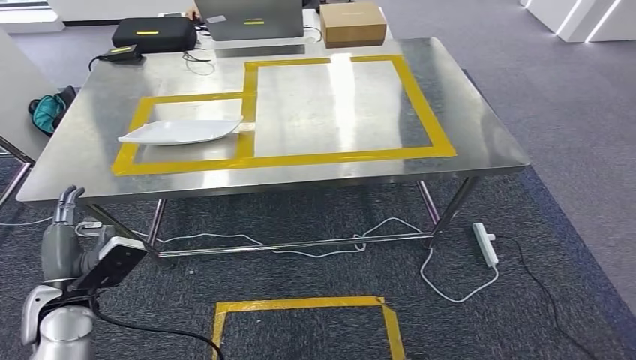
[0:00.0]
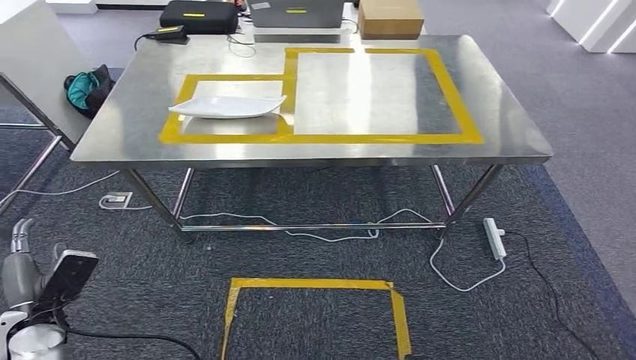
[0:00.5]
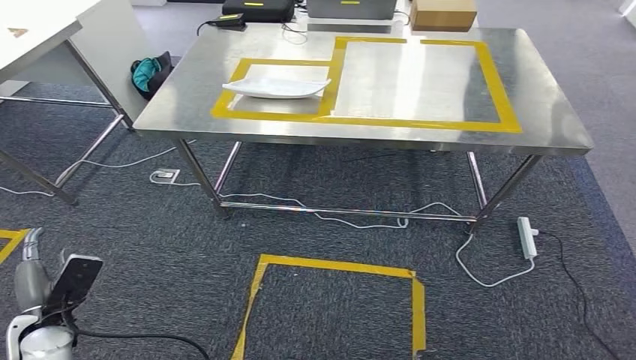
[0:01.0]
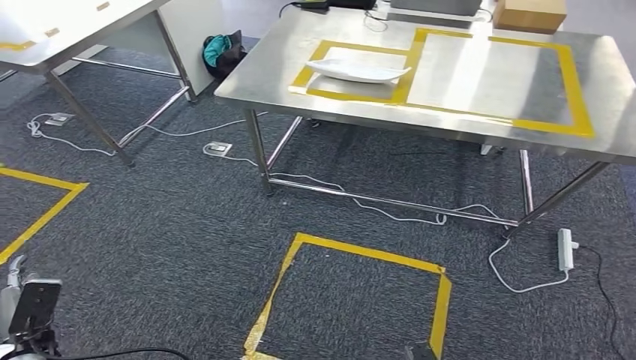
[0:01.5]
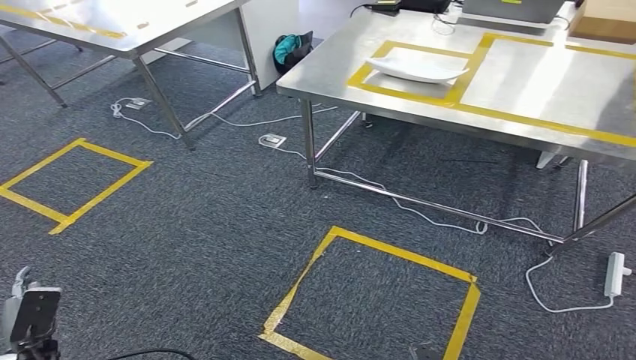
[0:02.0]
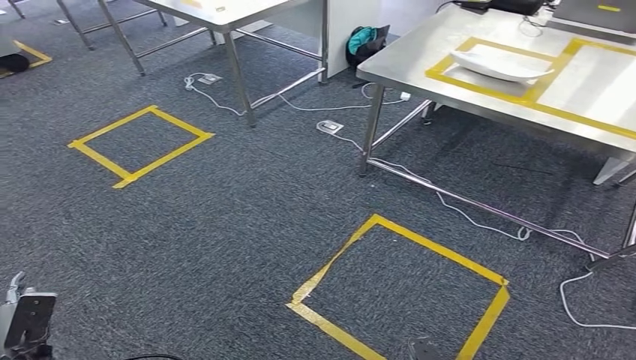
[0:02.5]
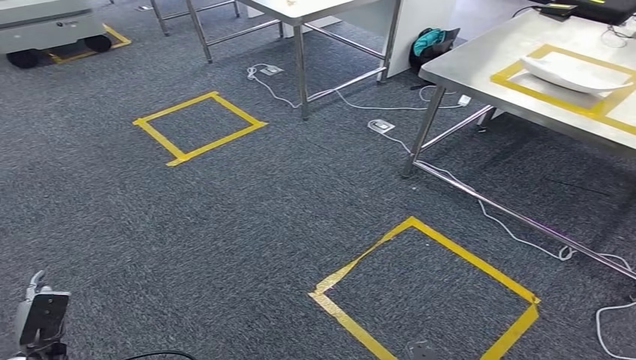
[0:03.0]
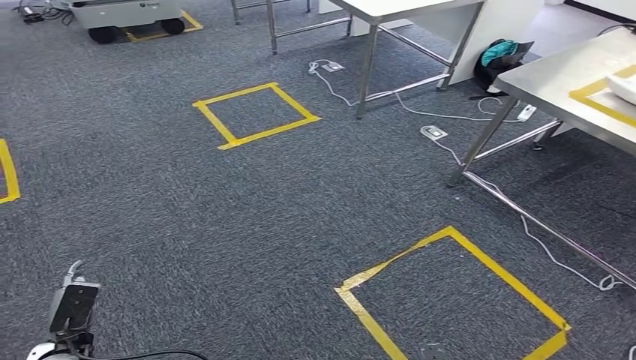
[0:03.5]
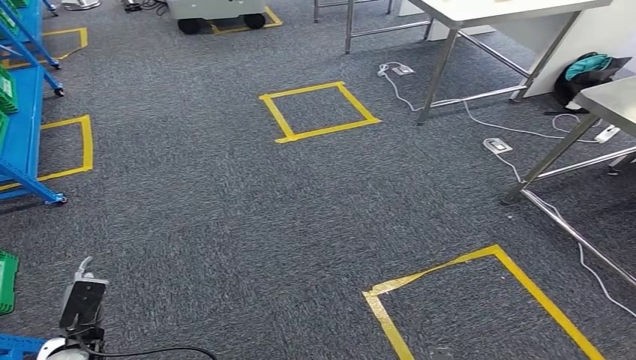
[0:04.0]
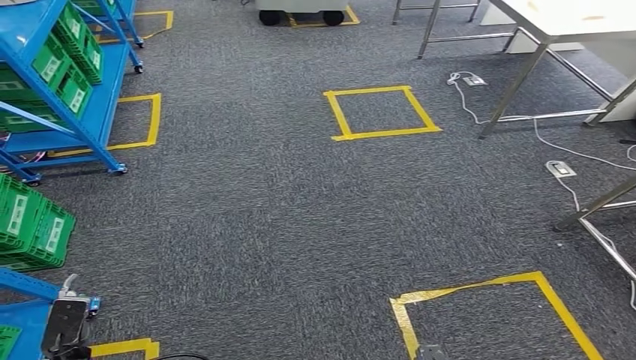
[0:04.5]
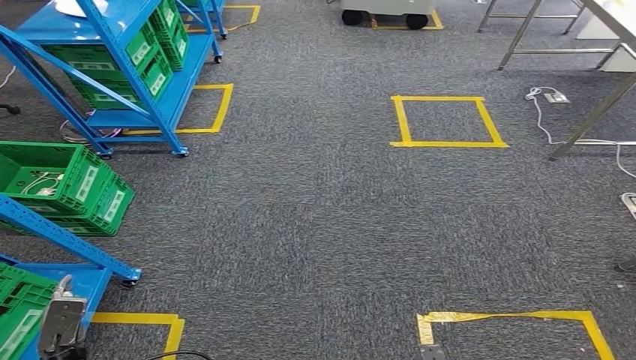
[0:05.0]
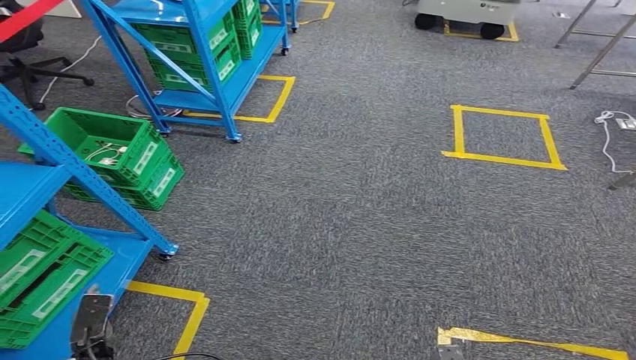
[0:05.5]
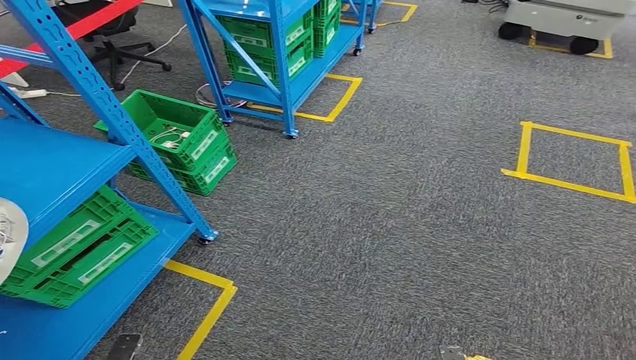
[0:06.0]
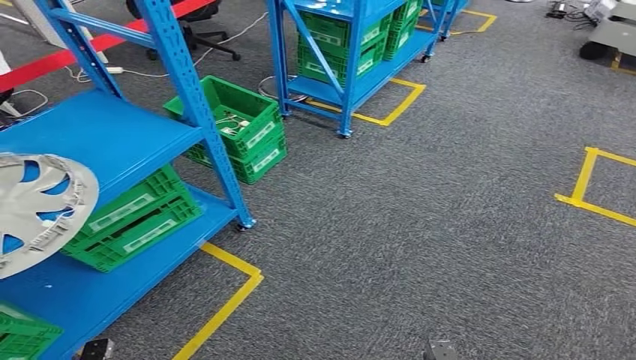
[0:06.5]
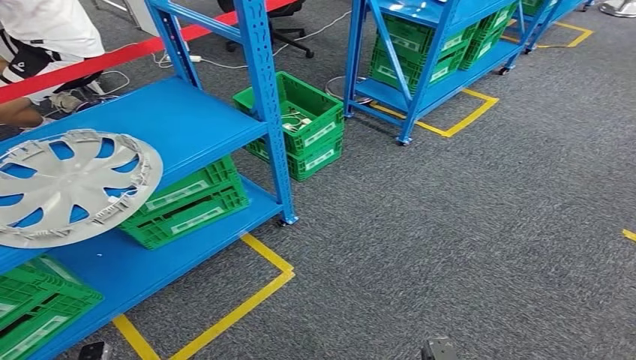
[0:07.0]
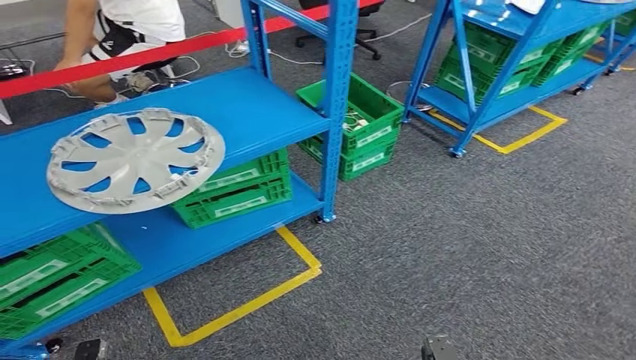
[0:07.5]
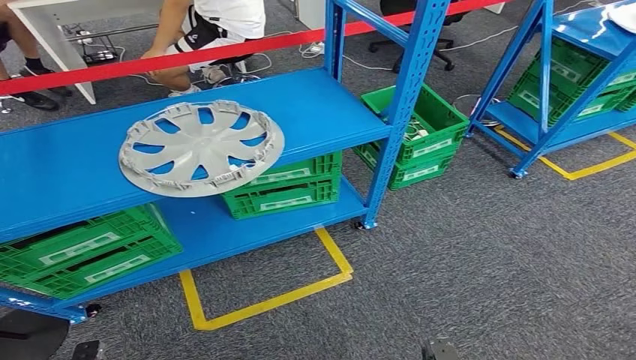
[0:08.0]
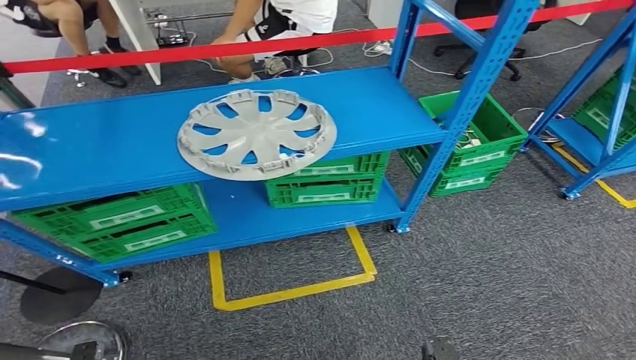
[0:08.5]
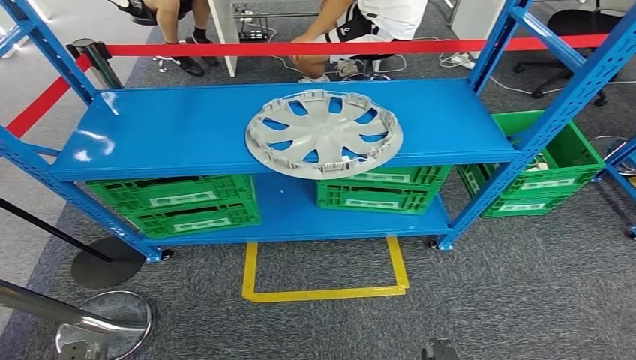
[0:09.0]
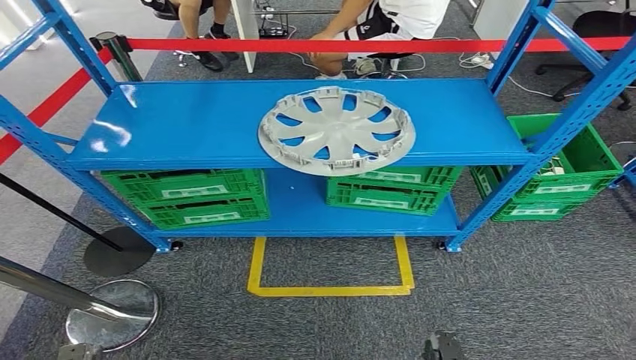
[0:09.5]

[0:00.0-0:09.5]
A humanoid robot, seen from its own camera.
Step, 0:00.5 to 0:09.5: Move to the initial position at the workbench.
